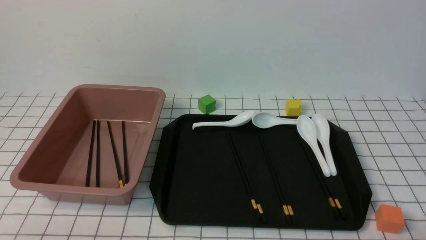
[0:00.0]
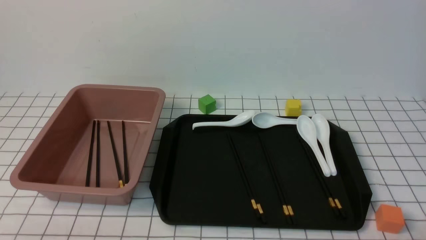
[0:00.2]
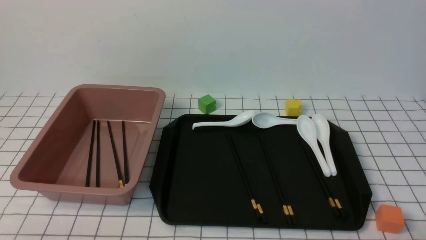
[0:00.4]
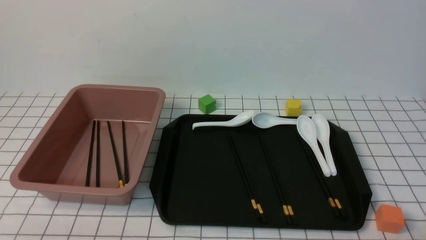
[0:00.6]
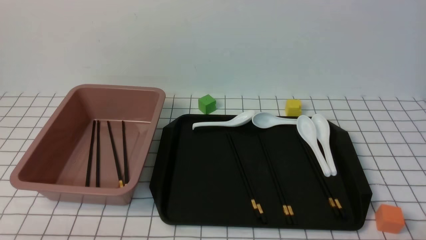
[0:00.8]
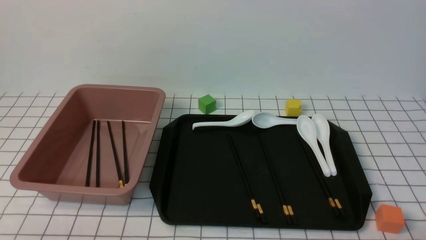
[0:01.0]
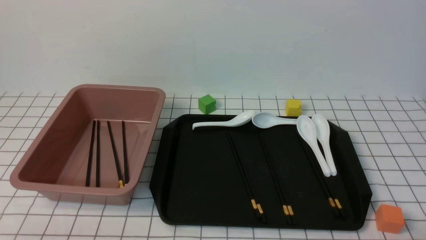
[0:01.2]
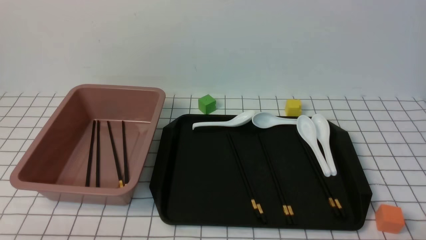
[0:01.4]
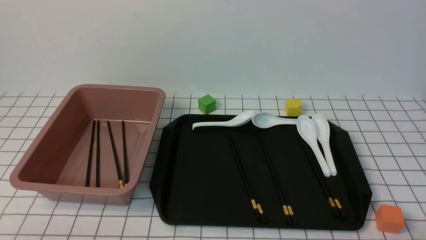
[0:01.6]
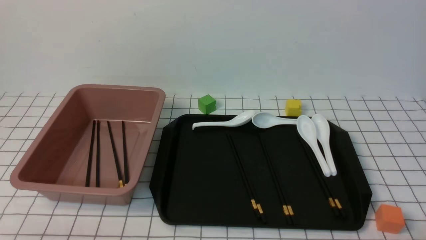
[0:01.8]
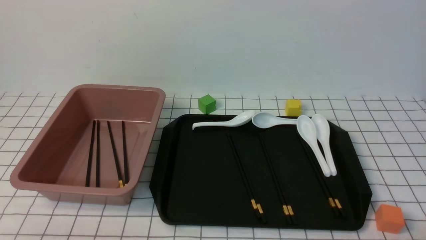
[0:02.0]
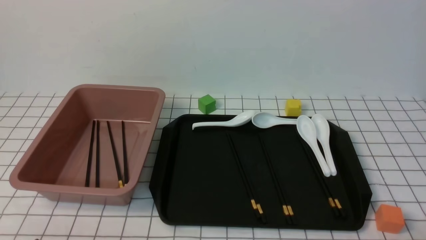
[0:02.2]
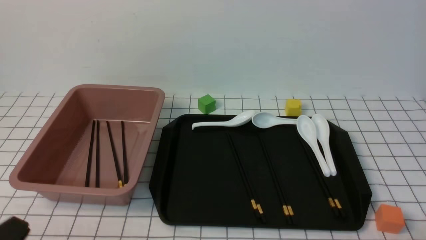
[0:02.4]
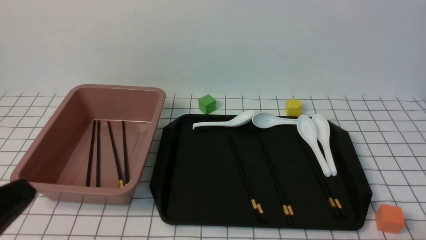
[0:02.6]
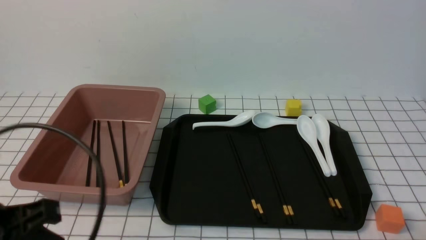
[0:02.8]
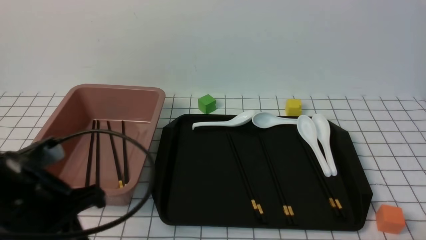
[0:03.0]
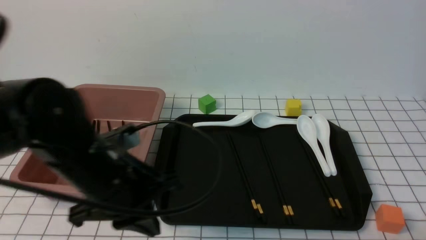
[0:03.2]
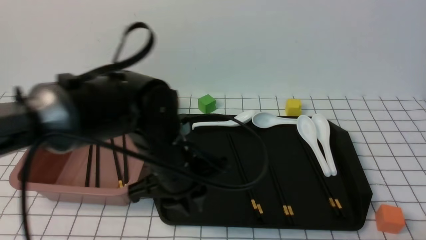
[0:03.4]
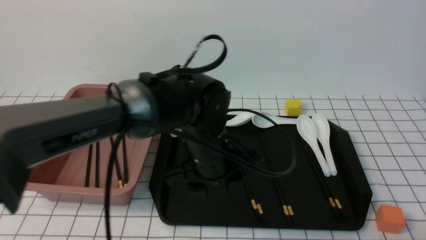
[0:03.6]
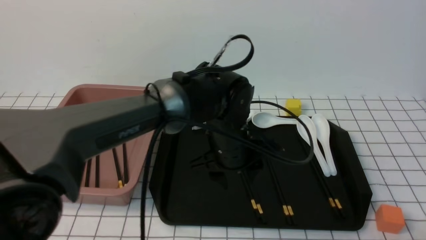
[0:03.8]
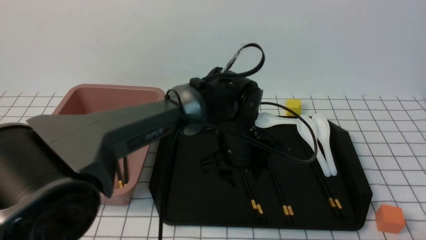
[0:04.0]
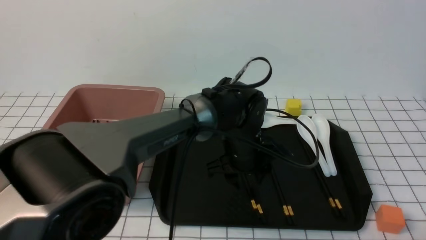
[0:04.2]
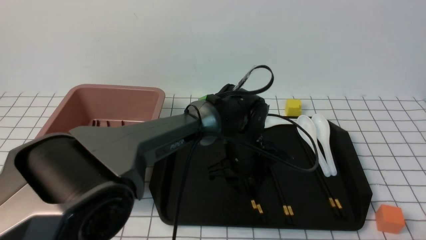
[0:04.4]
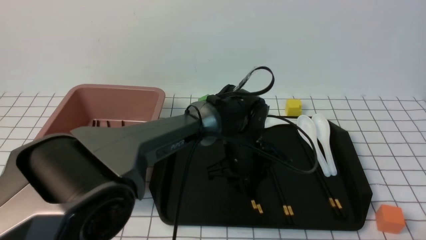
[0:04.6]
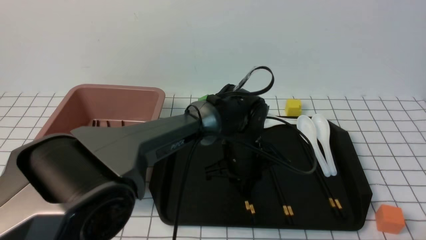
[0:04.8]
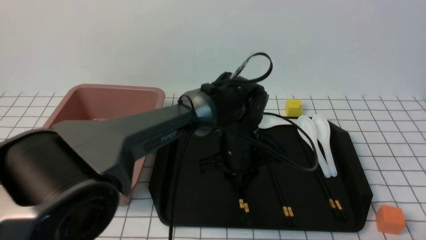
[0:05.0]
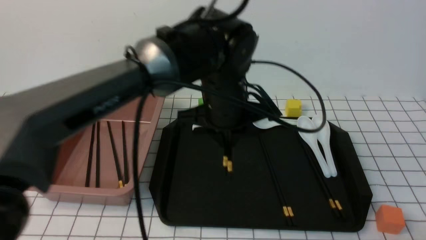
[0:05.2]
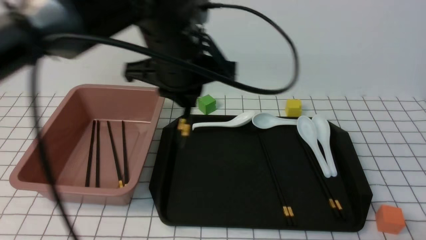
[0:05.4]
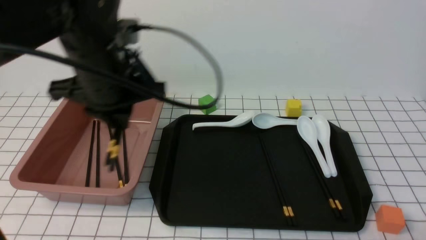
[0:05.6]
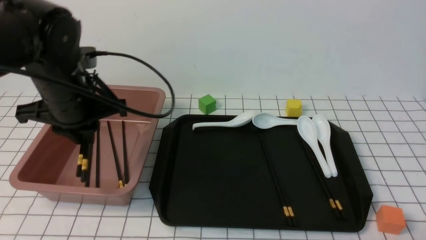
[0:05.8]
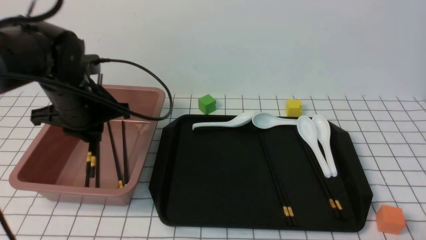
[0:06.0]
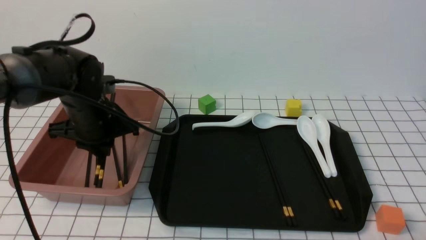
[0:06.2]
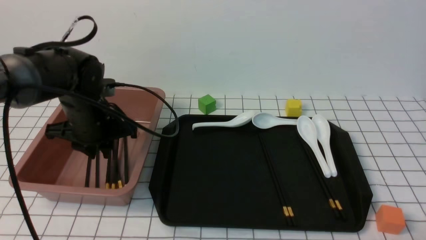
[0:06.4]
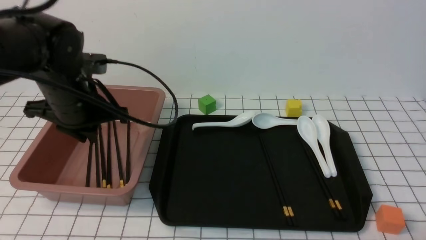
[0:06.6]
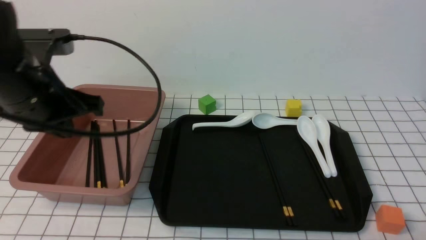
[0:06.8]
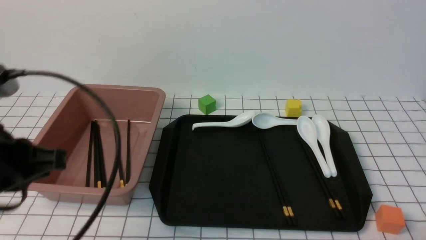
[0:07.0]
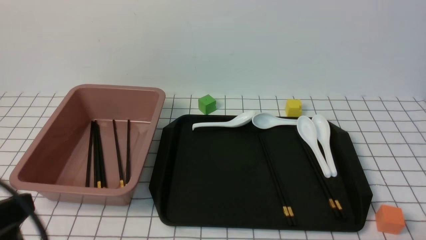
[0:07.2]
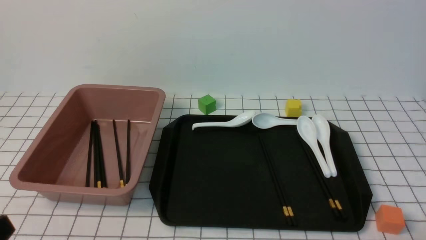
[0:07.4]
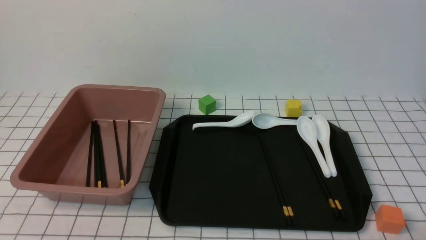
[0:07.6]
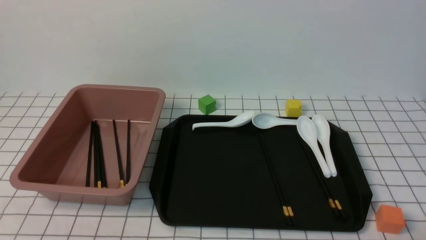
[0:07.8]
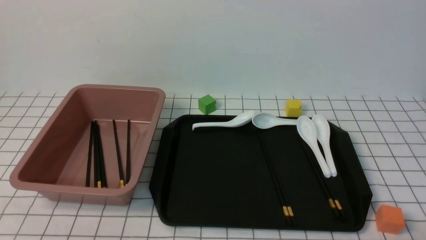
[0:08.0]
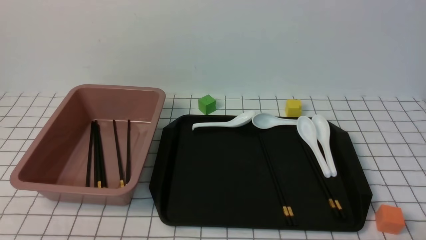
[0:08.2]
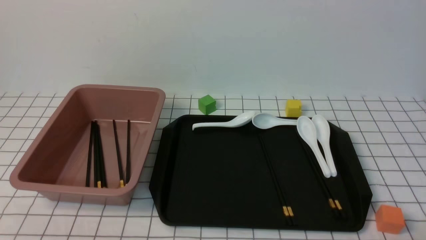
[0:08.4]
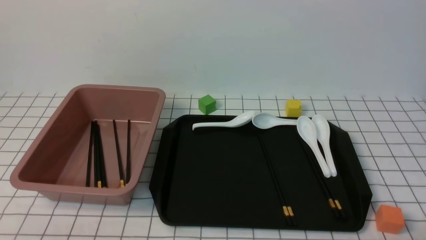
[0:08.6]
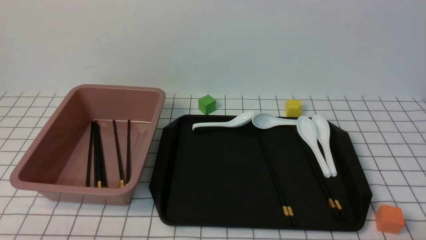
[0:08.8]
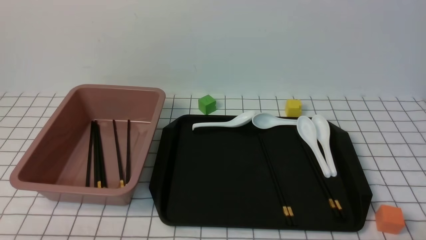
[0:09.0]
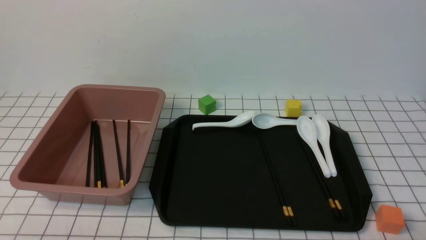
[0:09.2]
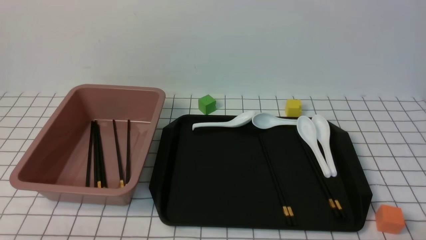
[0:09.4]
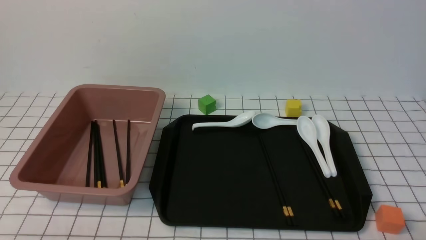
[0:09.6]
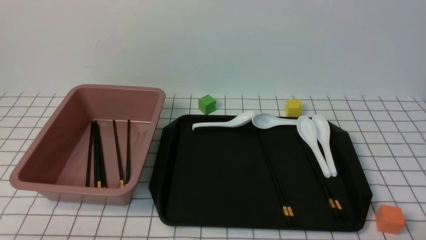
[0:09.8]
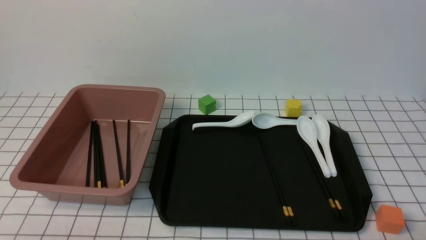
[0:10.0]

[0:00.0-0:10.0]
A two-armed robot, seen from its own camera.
Step, 0:00.0 to 0:05.0: use the left arm to grab a pair of chopsticks.
Step, 0:05.2 to 0:06.6: use the left arm to put the chopsticks into the lunch box.
0:01.4 to 0:02.8: The left gripper moves upward and forward, about 15 cm.
0:02.8 to 0:04.2: The left gripper heads to the right and forward, covering some 35 cm, and opens.
0:04.2 to 0:05.8: The left gripper shifts about 25 cm to the left and upward, and closes.
0:05.8 to 0:07.2: The left gripper is displaced backward by approximately 20 cm.
0:07.2 to 0:08.6: The left gripper is displaced downward and backward by roughly 15 cm.
